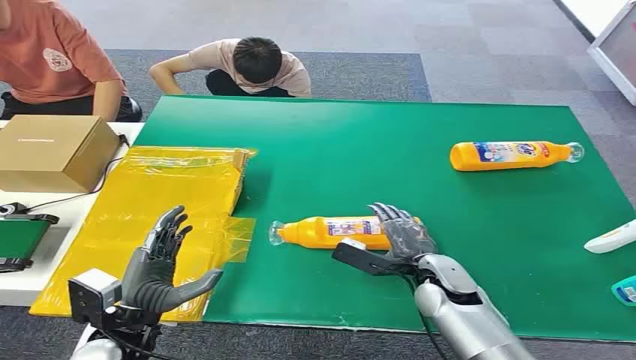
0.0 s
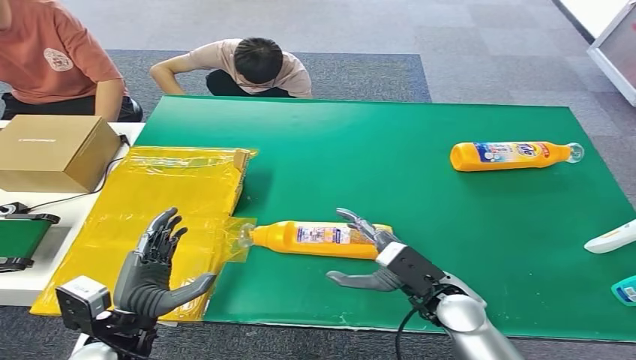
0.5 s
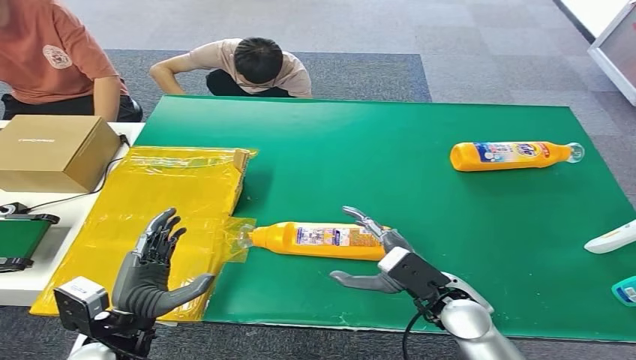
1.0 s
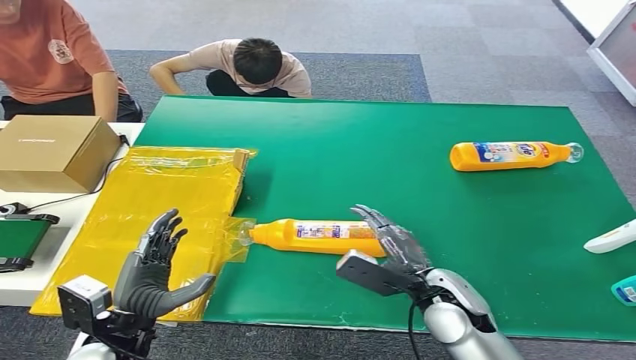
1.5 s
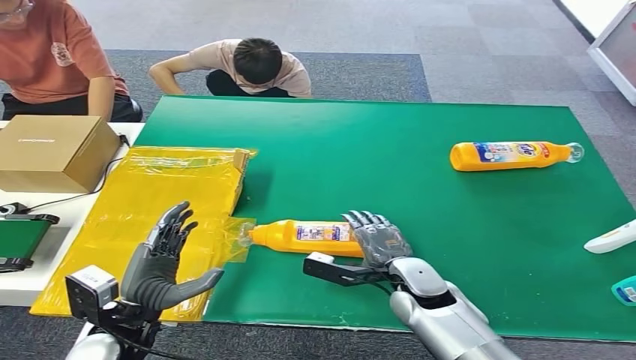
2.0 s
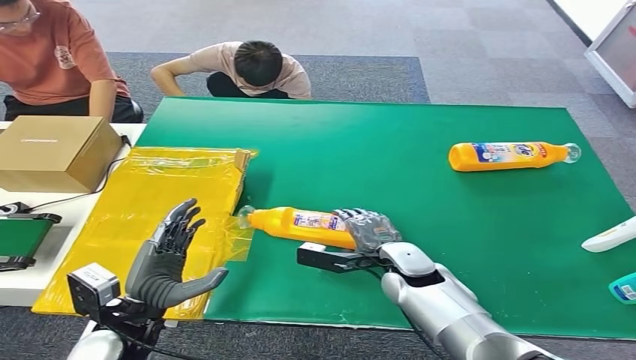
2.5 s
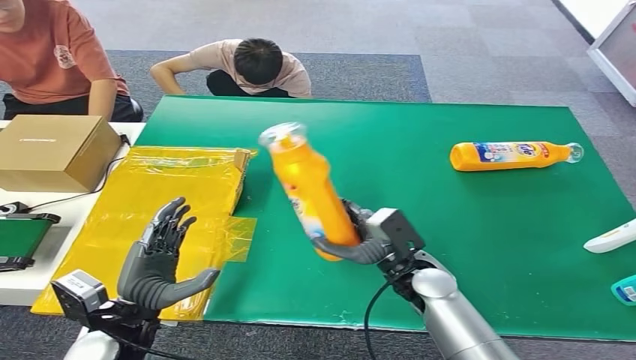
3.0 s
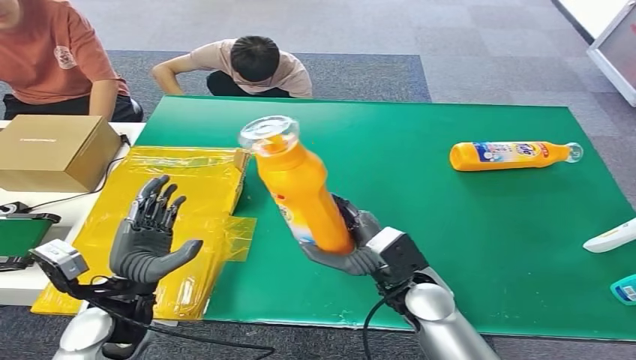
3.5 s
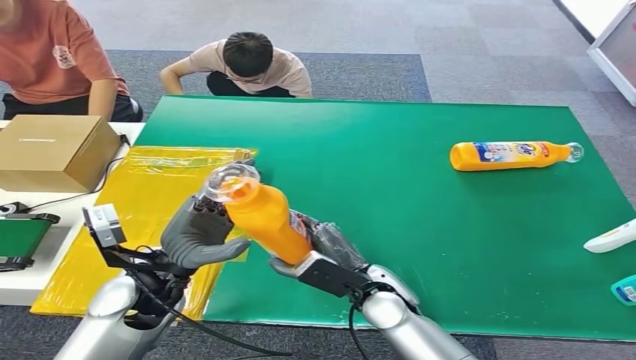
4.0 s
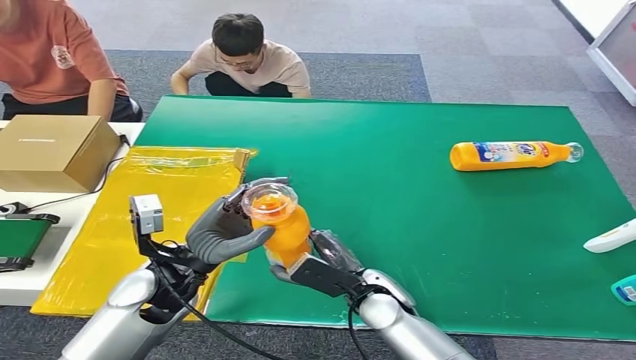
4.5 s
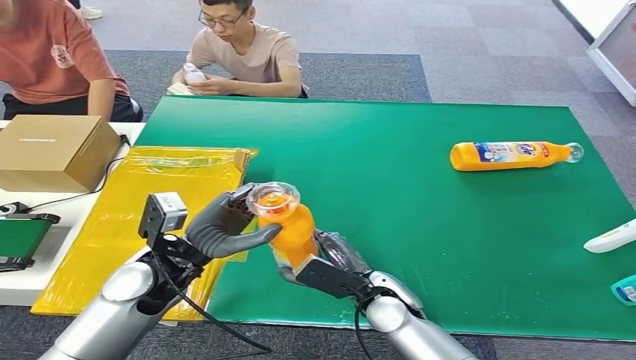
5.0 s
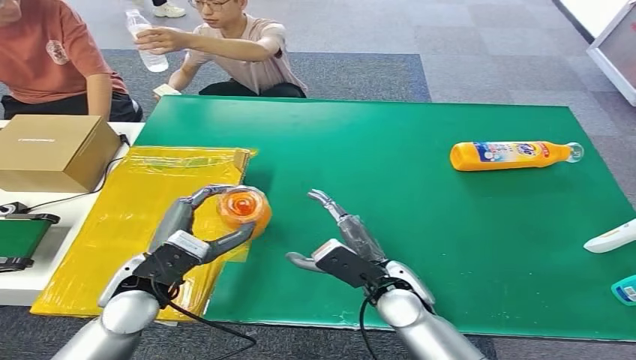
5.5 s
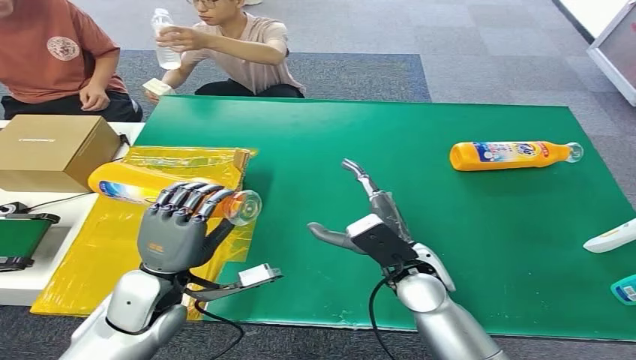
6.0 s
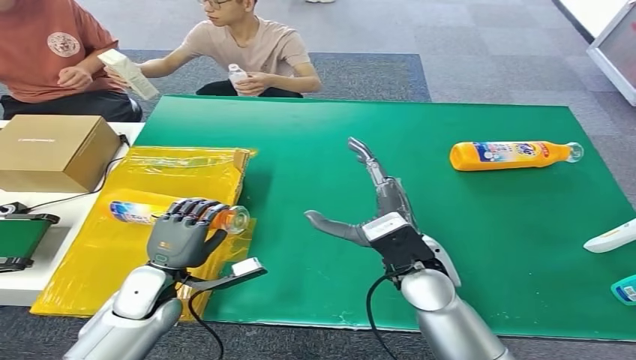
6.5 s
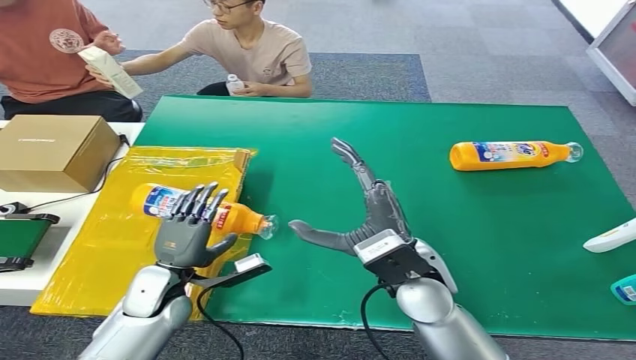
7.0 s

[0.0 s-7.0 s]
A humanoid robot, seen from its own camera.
Step, 0.0 to 3.0 s: Pick up the bottle from the table.
Step, 3.5 to 7.0 s: Turn the bottle to the front side.
2.0 to 3.5 s: The right hand is displaced upward by some 5 cm.
